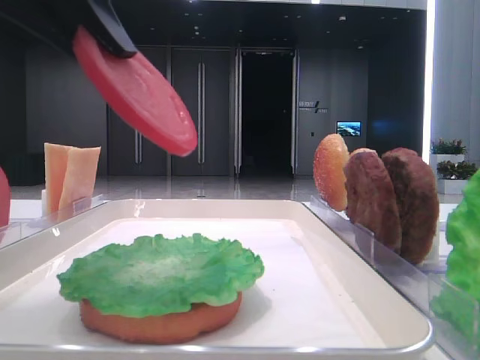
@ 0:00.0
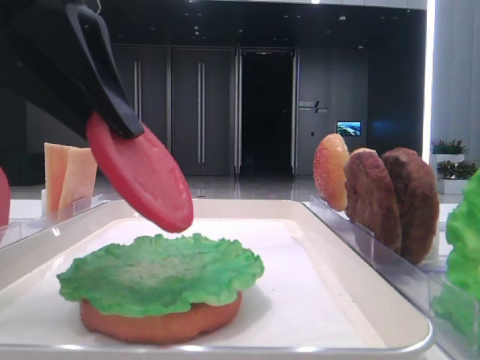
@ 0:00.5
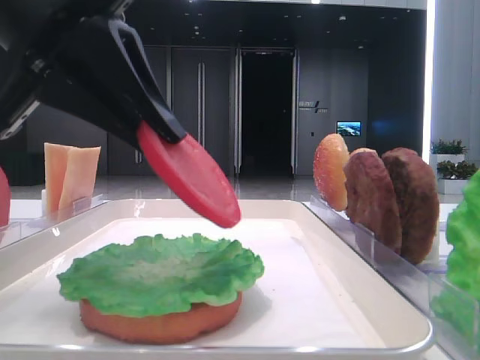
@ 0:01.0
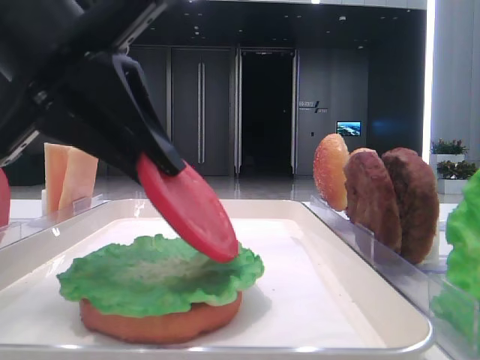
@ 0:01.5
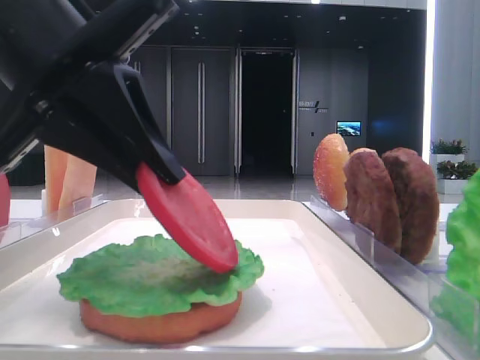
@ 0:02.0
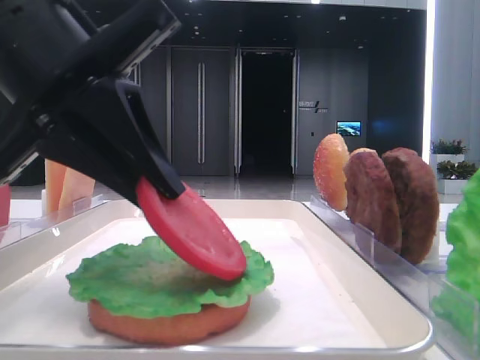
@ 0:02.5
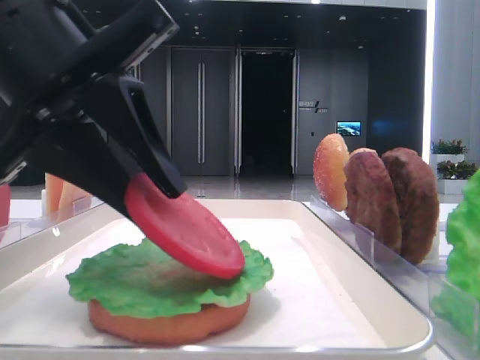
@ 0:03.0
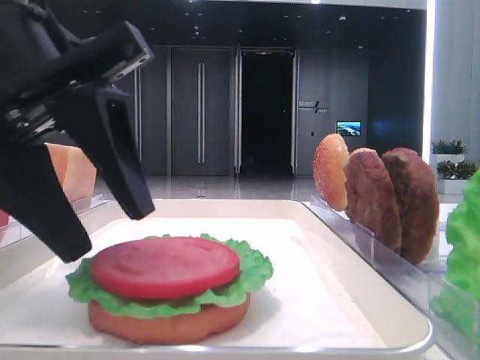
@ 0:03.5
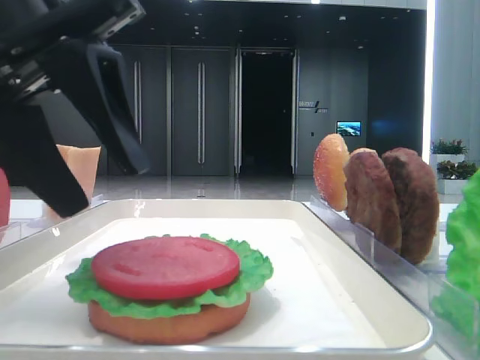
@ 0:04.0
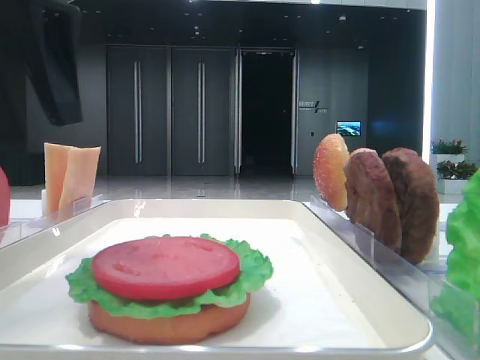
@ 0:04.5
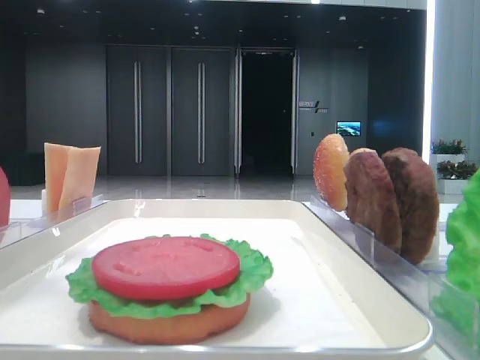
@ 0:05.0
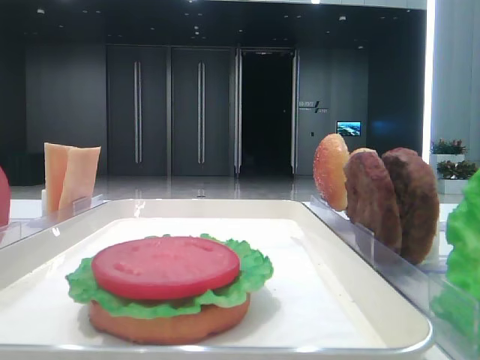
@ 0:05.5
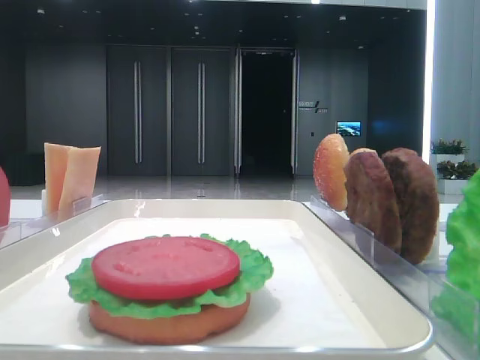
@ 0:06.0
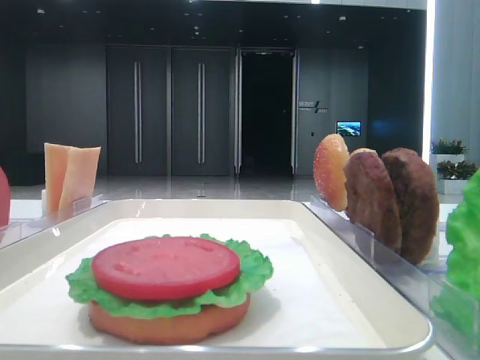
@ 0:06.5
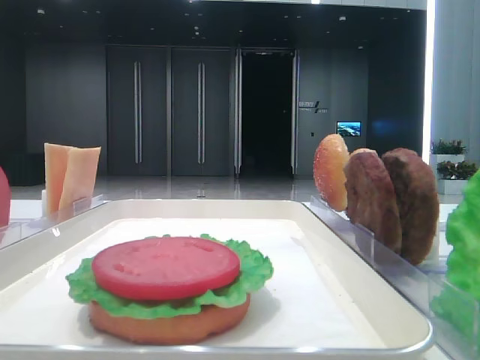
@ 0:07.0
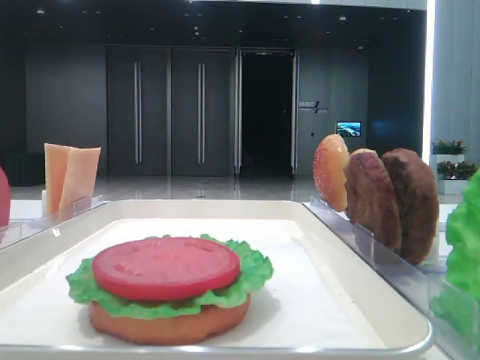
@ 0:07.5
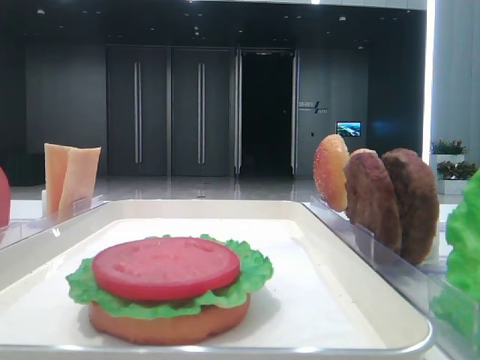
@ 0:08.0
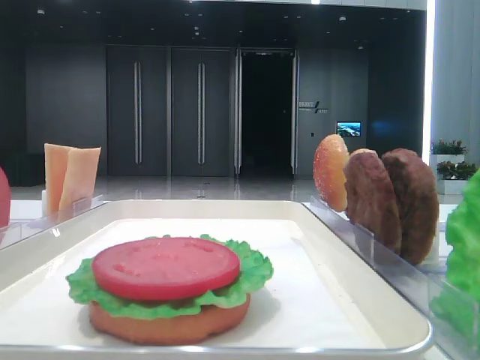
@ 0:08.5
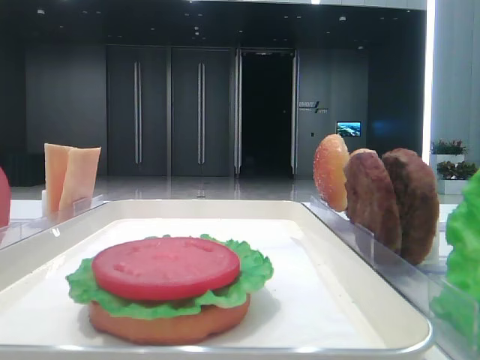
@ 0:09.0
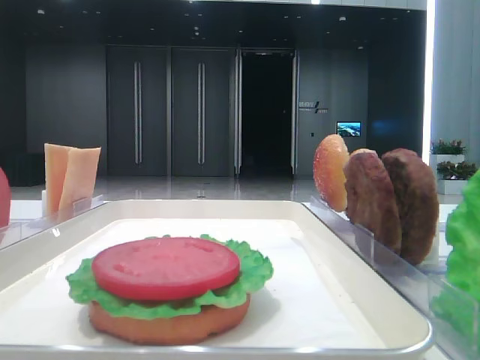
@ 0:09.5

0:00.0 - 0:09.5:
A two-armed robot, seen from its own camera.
Step, 0:00.0 - 0:03.0: Place the tomato slice on the lettuce leaf with the left hand.
0:00.0 - 0:02.0: The left gripper goes some 5 cm downward.
0:02.0 - 0:04.0: The left gripper opens.
0:04.0 - 0:05.5: The left gripper moves to the left and upward, some 15 cm.
